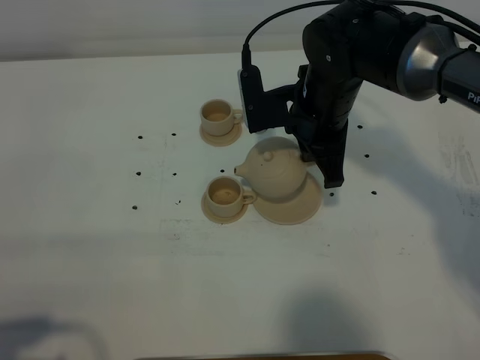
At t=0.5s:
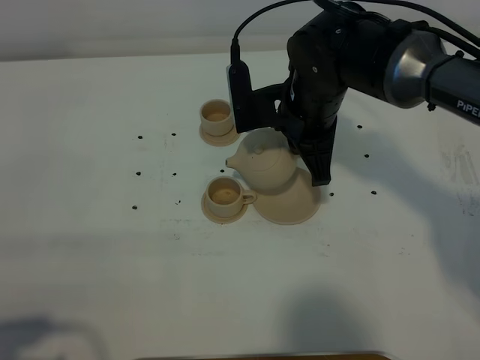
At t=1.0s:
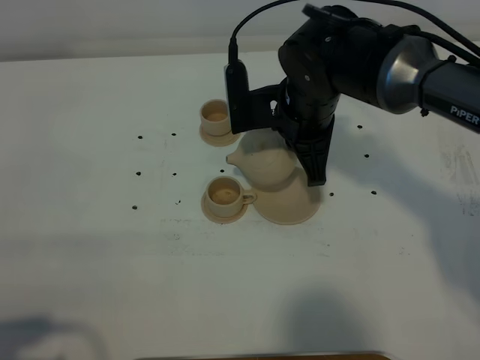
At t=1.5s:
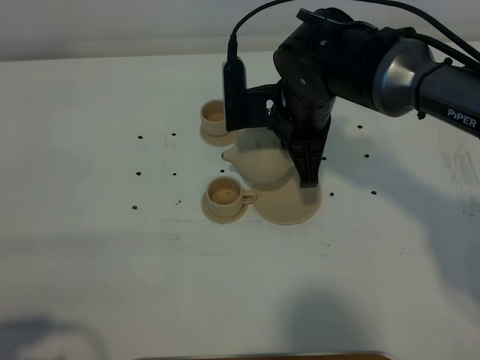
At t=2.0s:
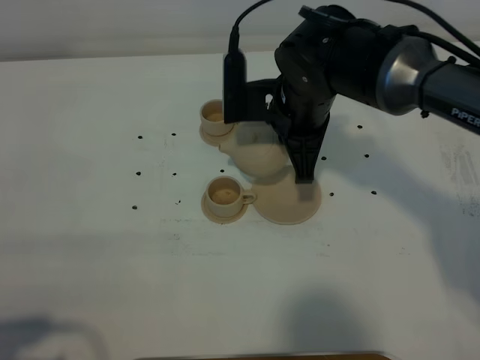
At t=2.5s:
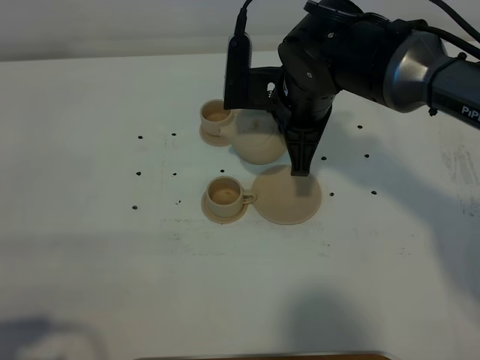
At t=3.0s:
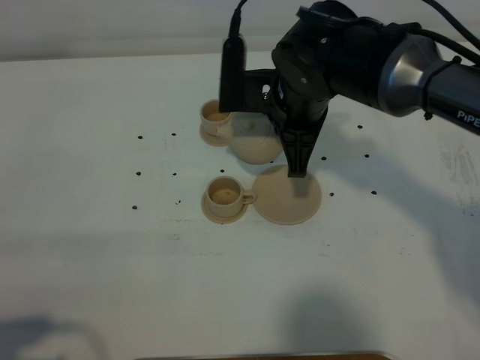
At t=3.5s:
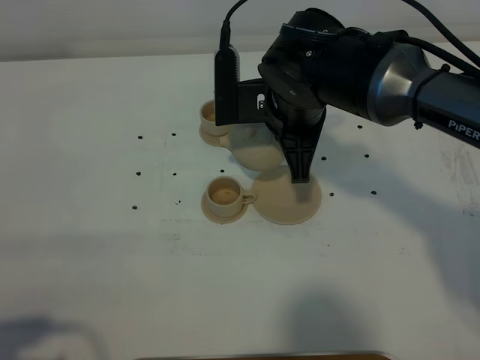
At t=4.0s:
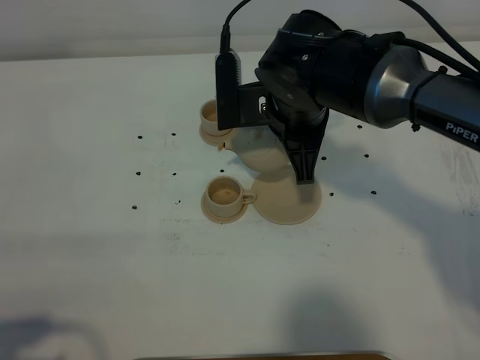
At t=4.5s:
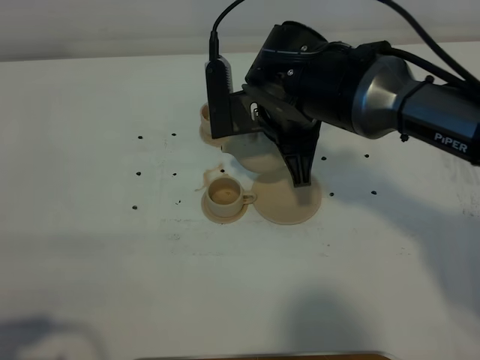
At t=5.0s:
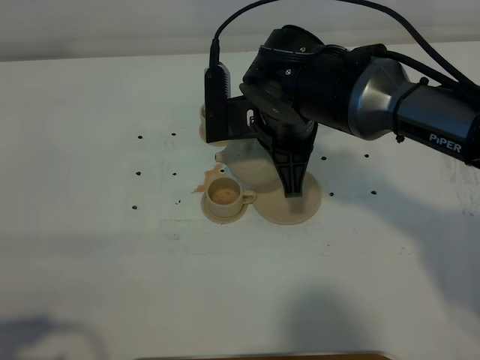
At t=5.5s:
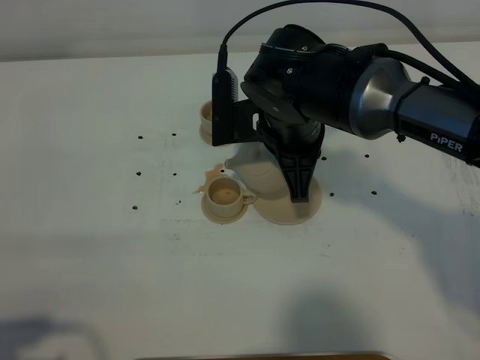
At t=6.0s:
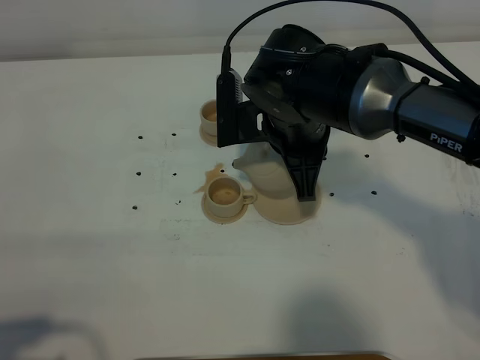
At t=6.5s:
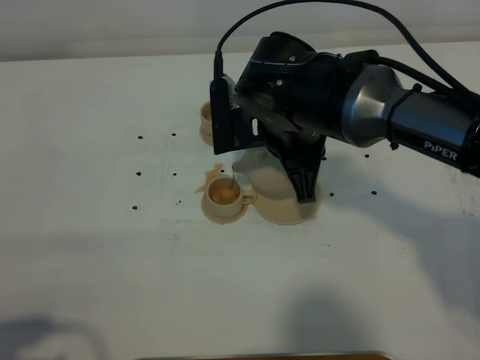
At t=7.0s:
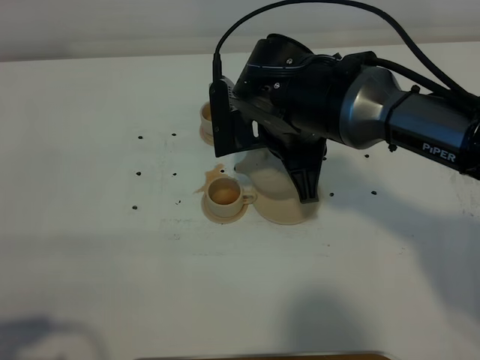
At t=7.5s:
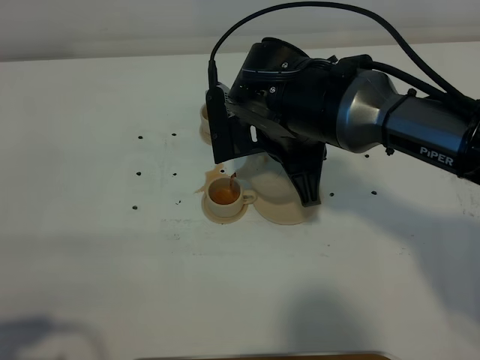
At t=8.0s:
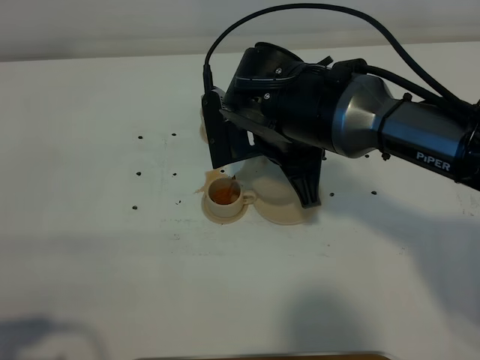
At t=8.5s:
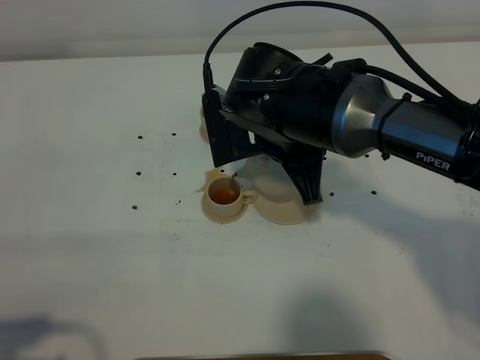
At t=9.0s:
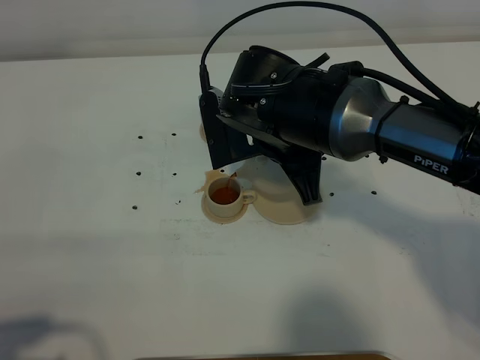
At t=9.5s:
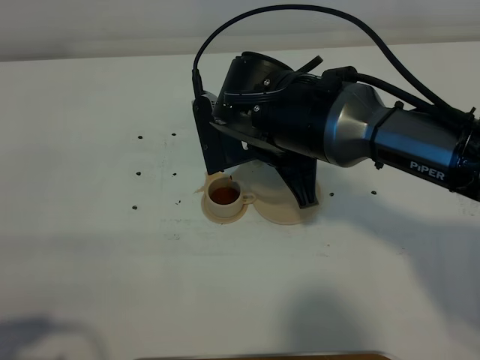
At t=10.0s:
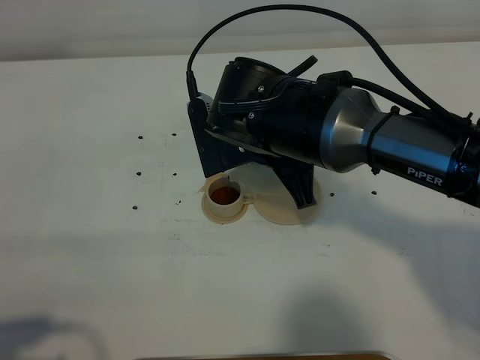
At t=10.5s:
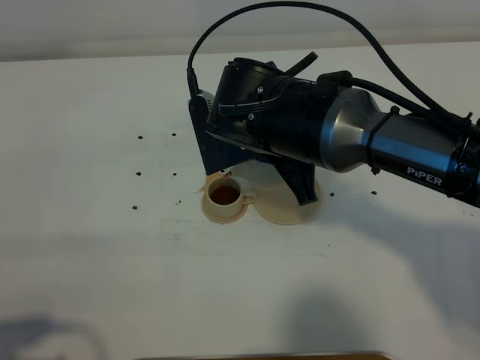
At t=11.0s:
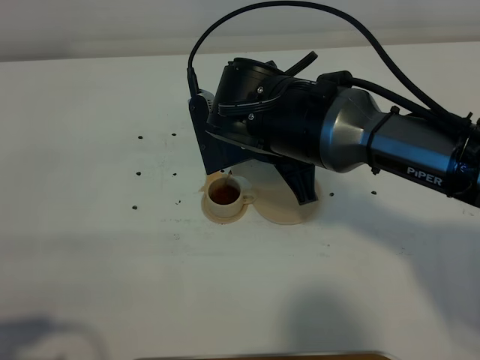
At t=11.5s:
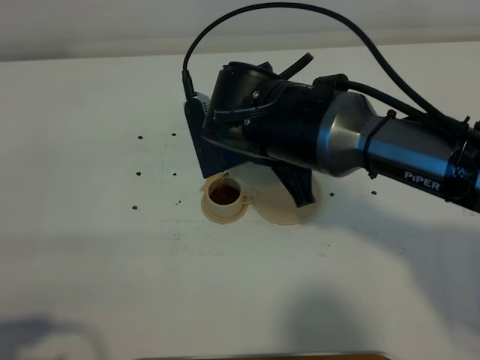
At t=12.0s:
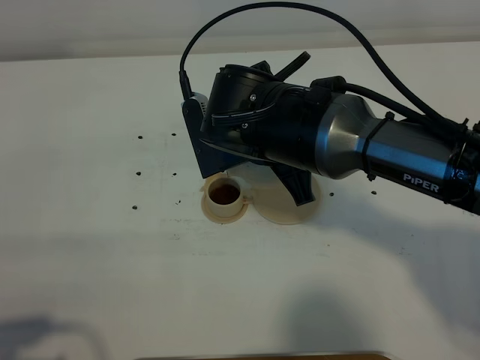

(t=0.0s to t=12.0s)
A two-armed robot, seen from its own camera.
Task of the whole recording: grasp the brown teapot and pour the tea into the two brown teacups one by one, put the brown teapot back in its original place.
t=0.0s - t=4.0s: The grippers stay close to where they were, moving slightly.
t=4.0s - t=10.0s: There are only small adjustments of the grippers.
t=10.0s - t=12.0s: Neither gripper changes place.

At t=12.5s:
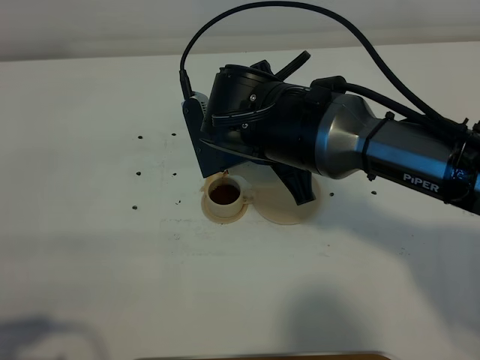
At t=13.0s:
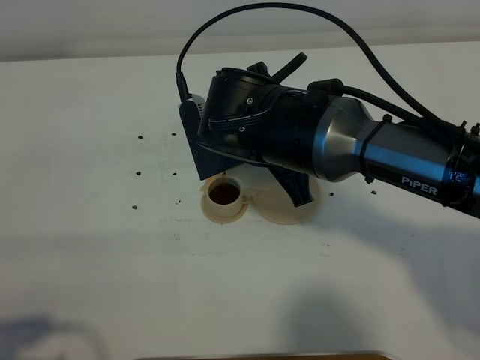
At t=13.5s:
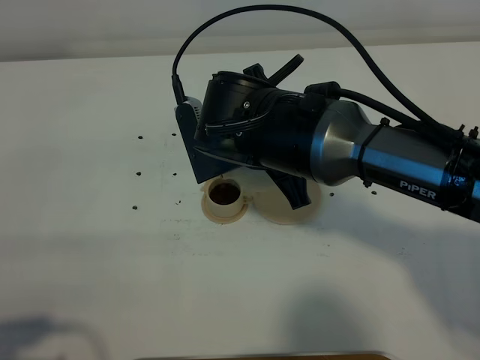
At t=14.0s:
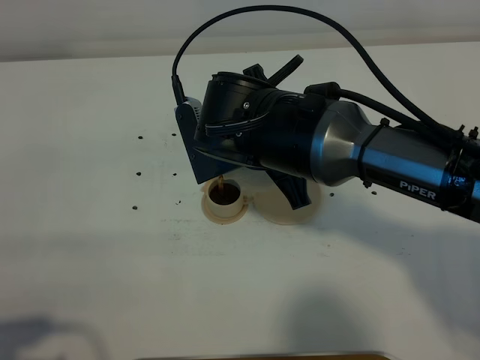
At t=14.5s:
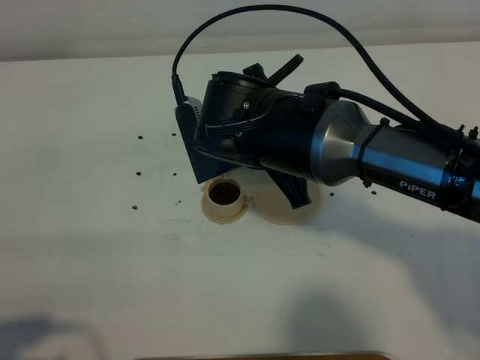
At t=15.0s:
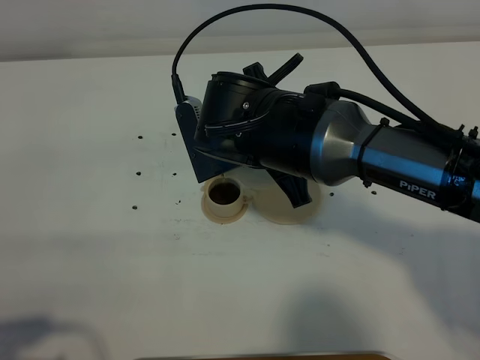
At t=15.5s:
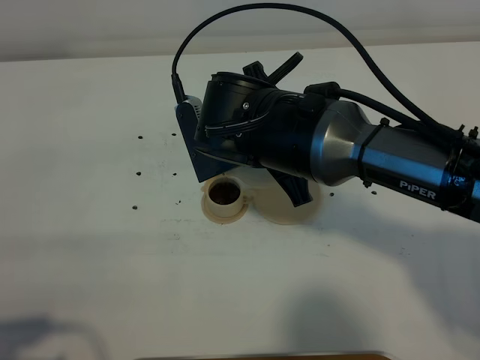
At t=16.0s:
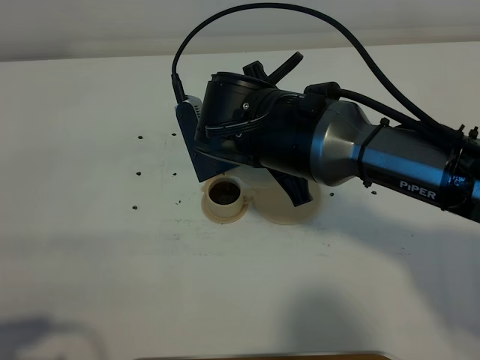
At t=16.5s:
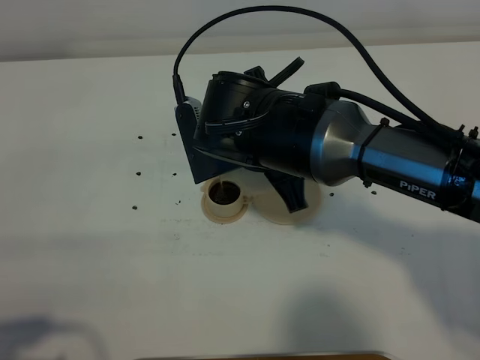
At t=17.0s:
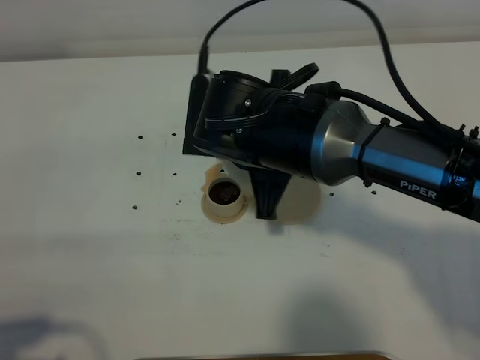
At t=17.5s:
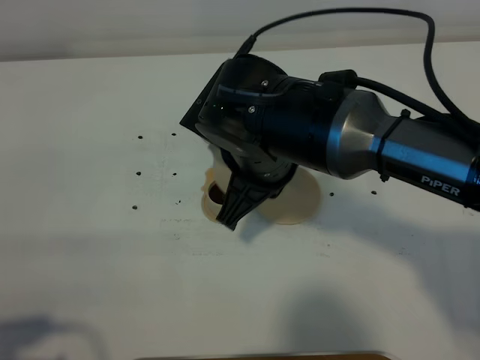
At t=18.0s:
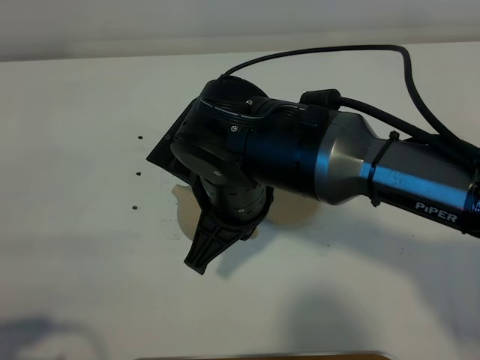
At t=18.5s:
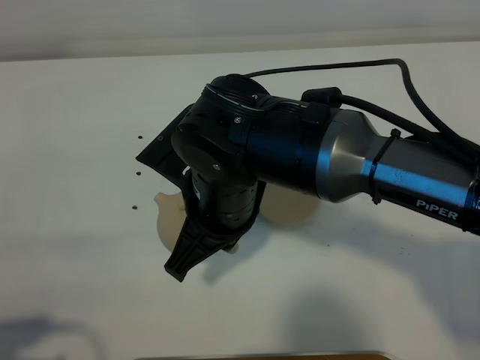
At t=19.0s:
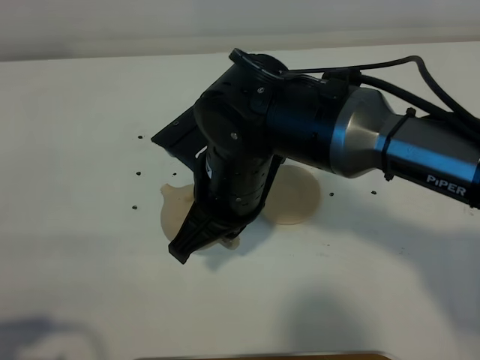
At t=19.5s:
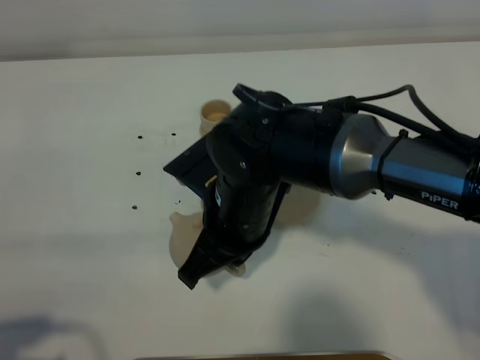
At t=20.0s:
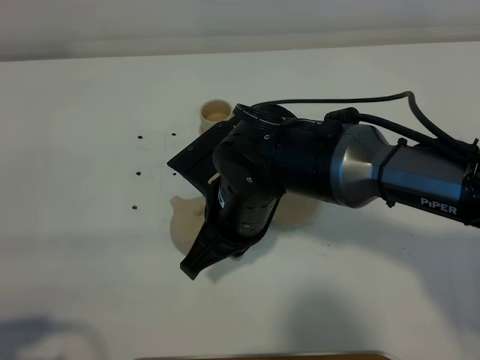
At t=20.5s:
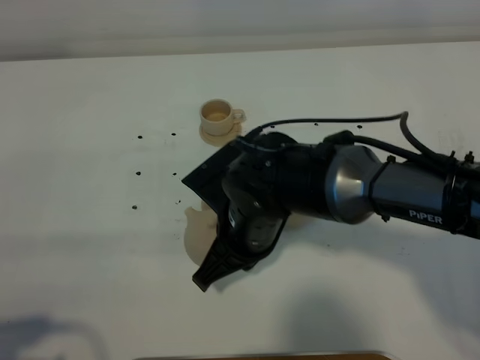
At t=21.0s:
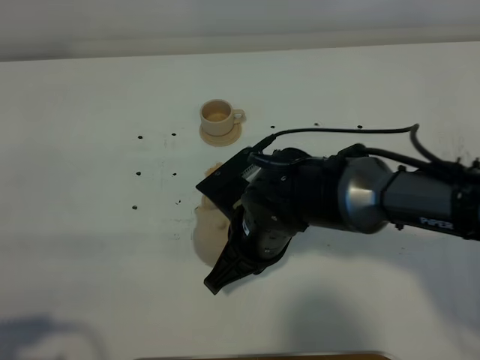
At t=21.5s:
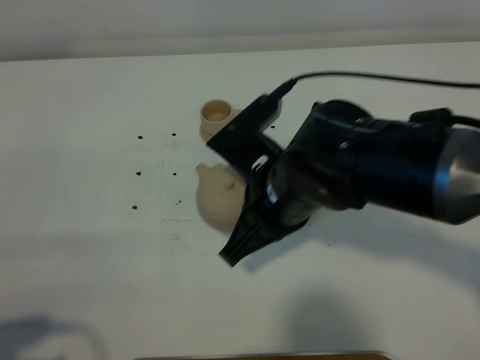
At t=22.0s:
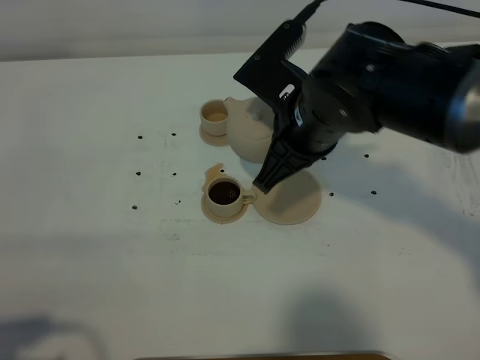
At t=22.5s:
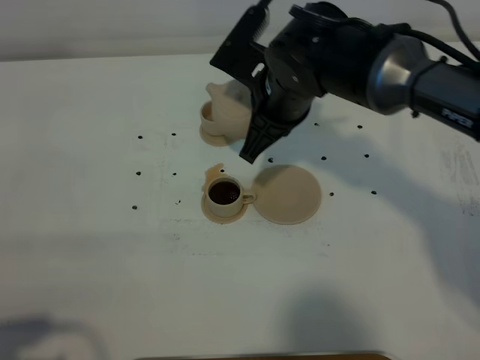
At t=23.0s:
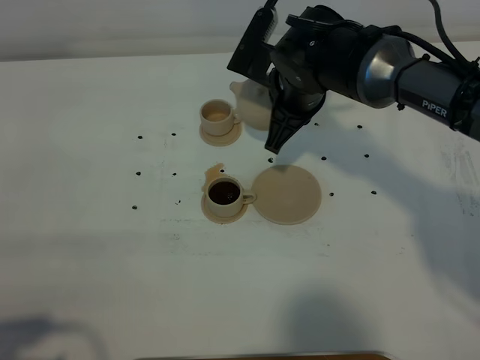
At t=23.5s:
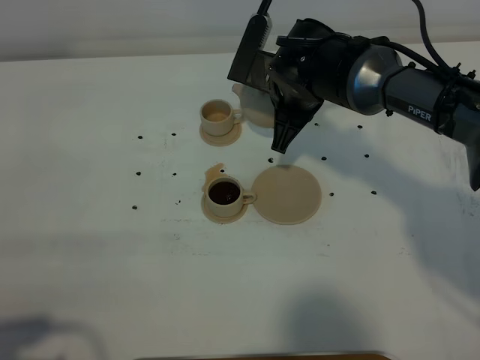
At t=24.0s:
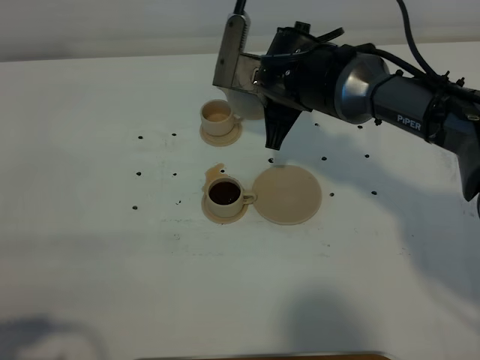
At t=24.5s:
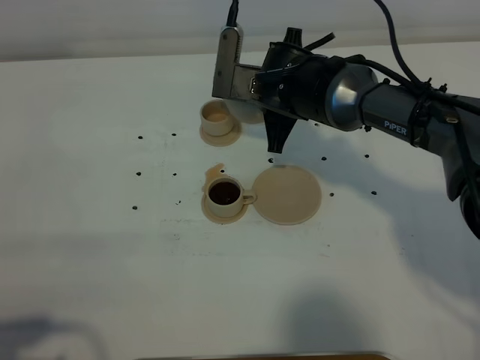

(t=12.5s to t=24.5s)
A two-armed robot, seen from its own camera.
Task of the whole recording: grasp the brown teapot and pour the tea into the two brown teacups one by one, put the brown teapot back in its original place.
t=12.5s - t=16.5s: Neither gripper changes place.
t=16.5s - t=18.5s: The right gripper heads backward, covering some 5 cm.
t=18.5s - t=20.5s: The right gripper shifts some 10 cm downward.
t=20.5s - t=22.5s: The right gripper goes about 15 cm forward and upward.
t=22.5s - t=24.5s: The right gripper shifts by about 5 cm.

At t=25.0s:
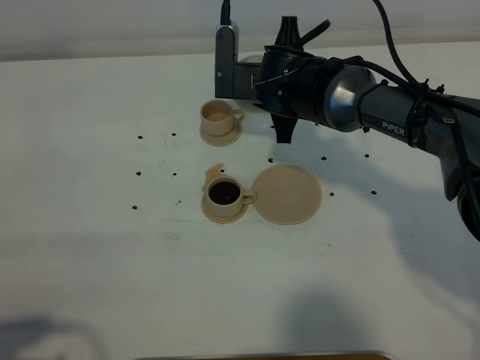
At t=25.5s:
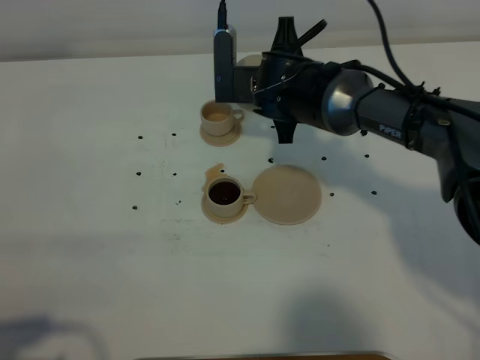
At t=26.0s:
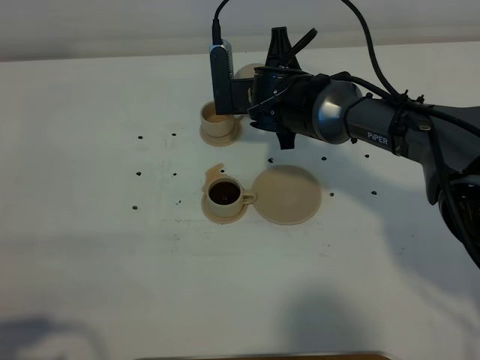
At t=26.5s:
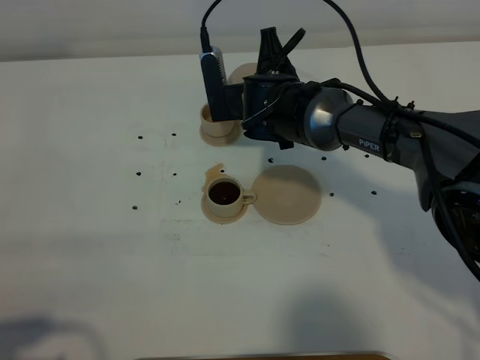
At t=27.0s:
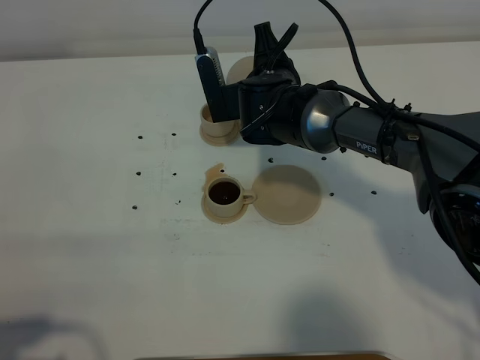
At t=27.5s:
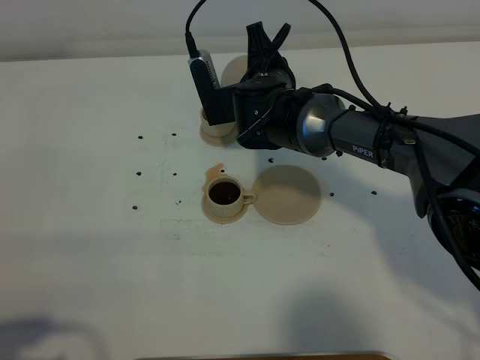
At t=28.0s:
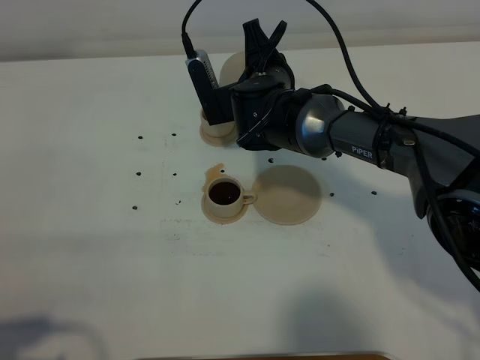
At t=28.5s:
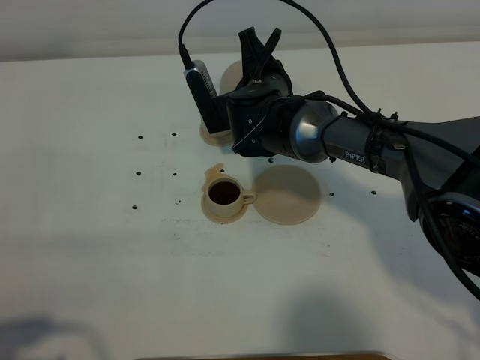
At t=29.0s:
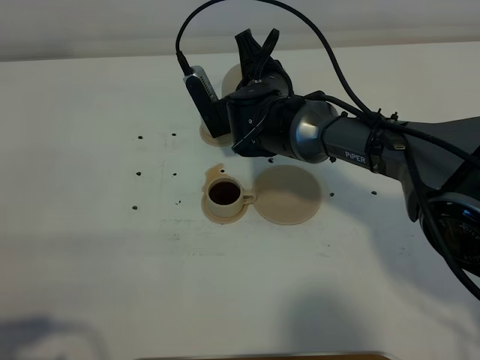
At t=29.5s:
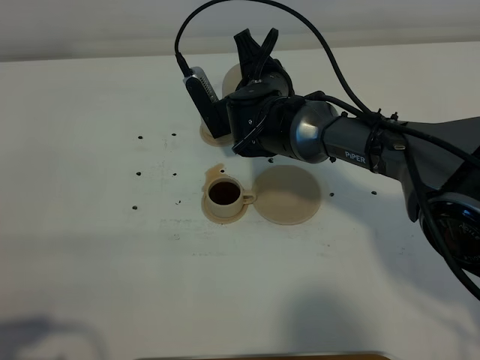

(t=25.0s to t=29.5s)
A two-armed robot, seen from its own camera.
Task of the whole recording: grasp the brown teapot and pour the tea into the two brown teacups one by one, put the brown teapot back in its original place.
t=25.0s - t=27.0s: The grippers stay close to where they were, moving slightly.
t=27.0s - t=29.5s: The grippers make only small movements.
